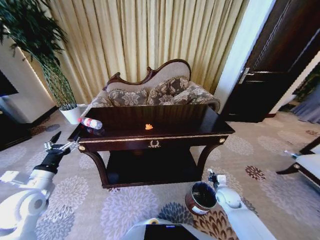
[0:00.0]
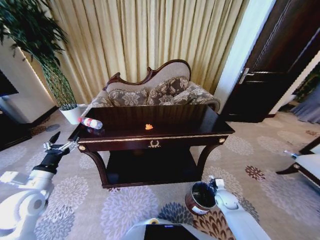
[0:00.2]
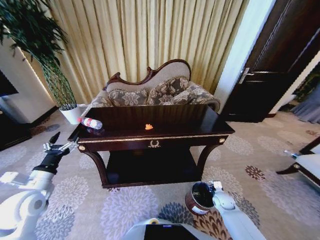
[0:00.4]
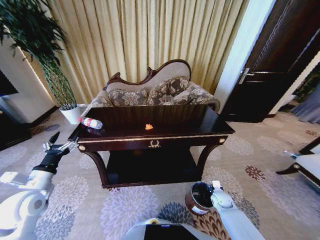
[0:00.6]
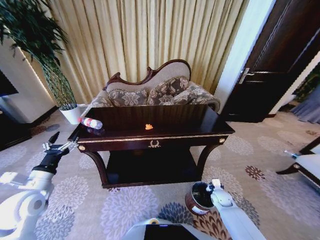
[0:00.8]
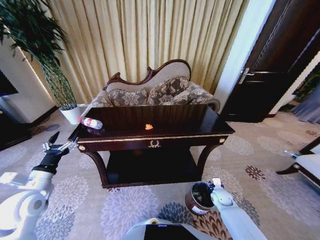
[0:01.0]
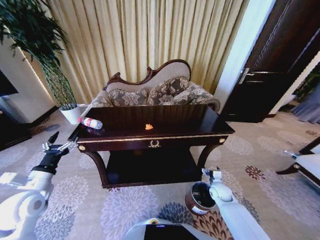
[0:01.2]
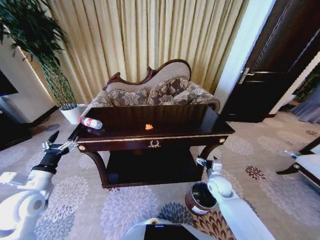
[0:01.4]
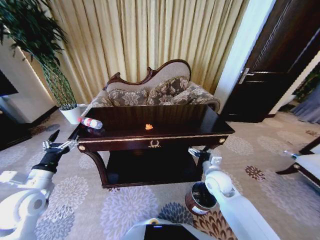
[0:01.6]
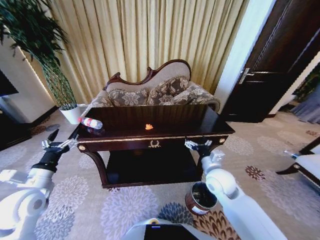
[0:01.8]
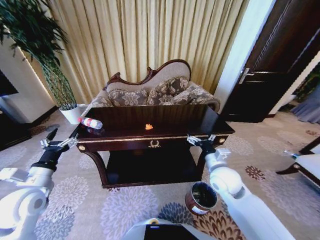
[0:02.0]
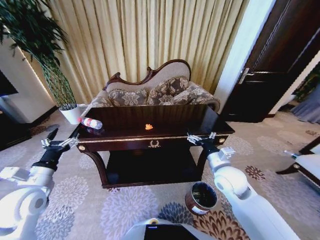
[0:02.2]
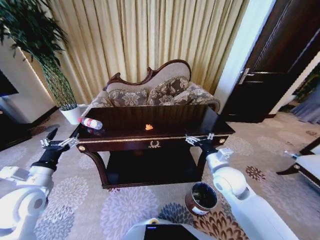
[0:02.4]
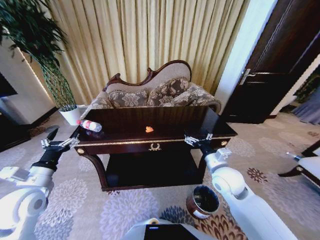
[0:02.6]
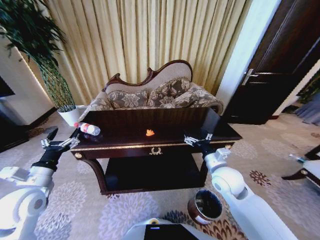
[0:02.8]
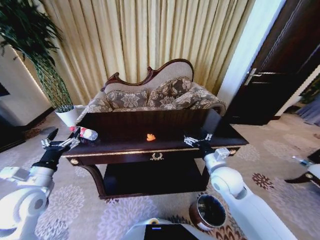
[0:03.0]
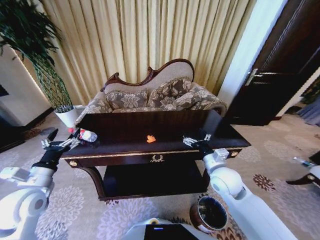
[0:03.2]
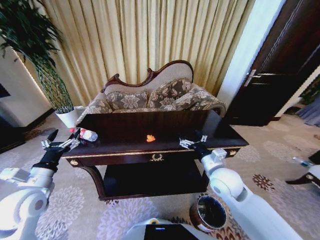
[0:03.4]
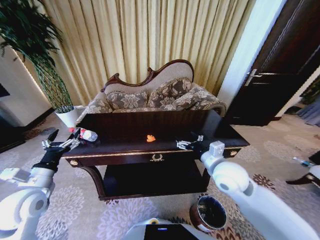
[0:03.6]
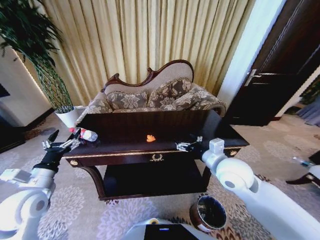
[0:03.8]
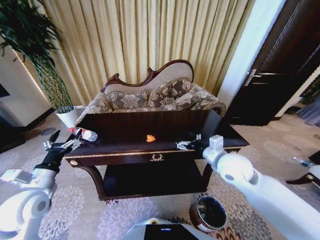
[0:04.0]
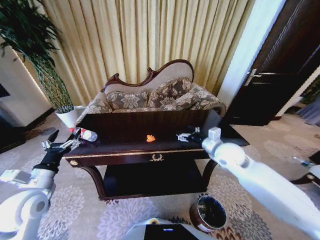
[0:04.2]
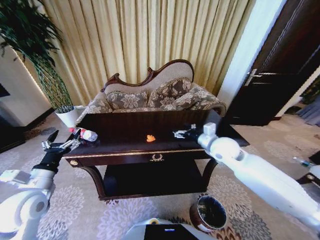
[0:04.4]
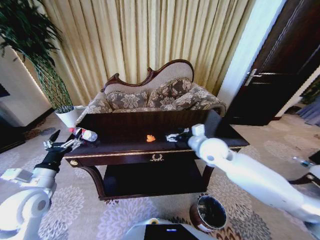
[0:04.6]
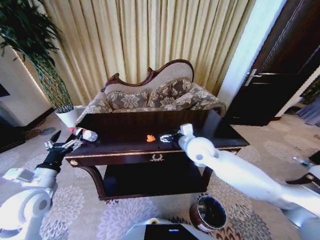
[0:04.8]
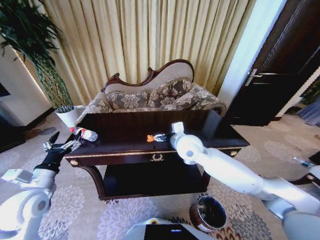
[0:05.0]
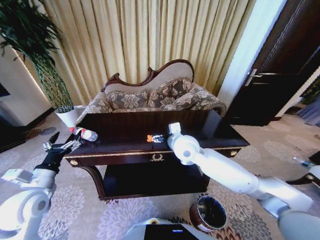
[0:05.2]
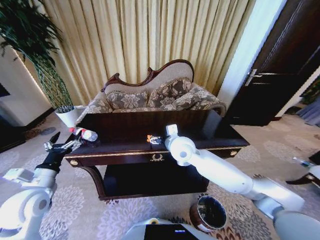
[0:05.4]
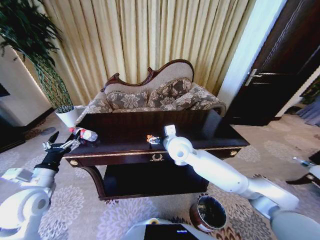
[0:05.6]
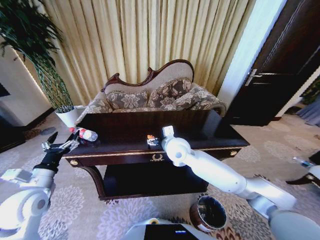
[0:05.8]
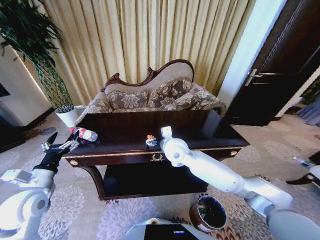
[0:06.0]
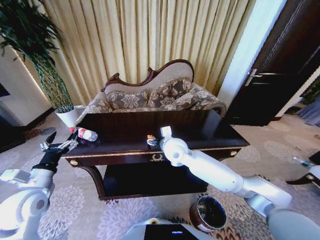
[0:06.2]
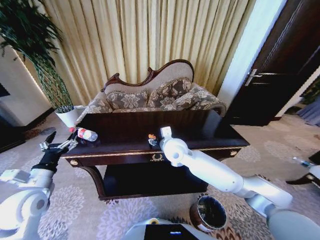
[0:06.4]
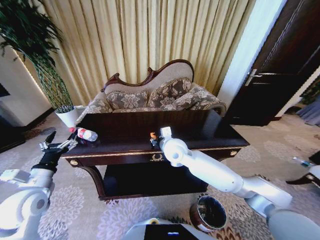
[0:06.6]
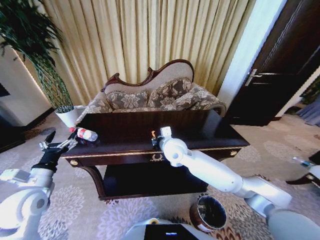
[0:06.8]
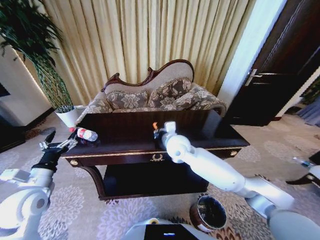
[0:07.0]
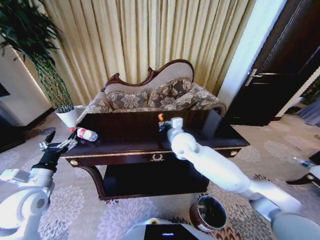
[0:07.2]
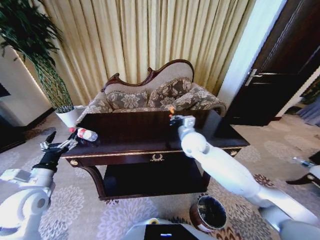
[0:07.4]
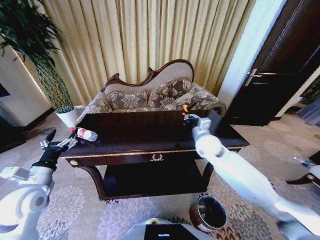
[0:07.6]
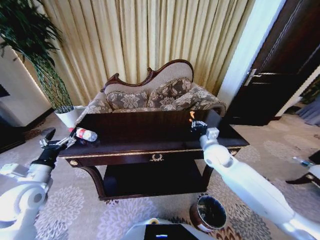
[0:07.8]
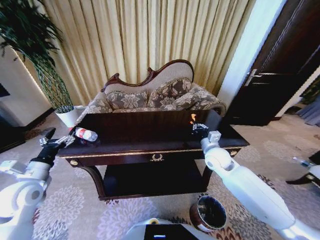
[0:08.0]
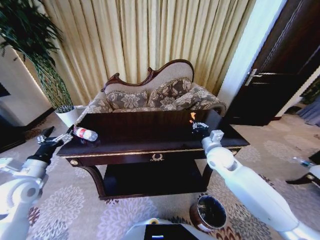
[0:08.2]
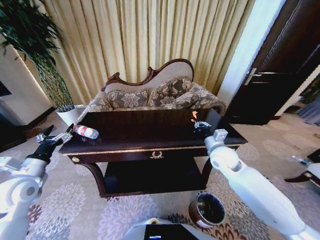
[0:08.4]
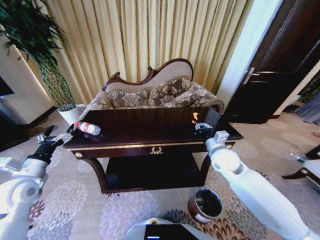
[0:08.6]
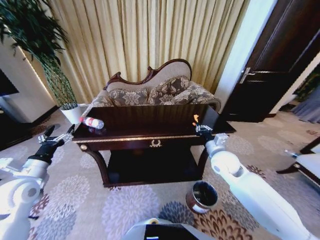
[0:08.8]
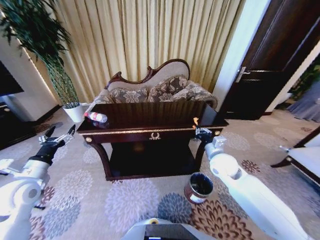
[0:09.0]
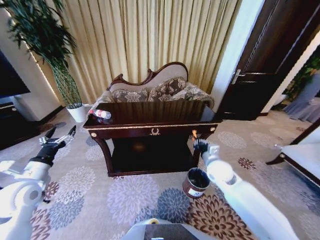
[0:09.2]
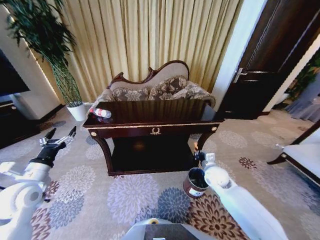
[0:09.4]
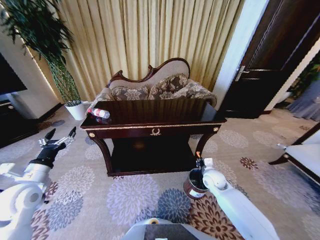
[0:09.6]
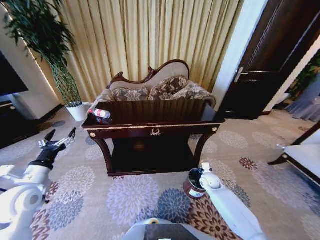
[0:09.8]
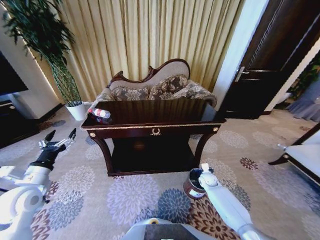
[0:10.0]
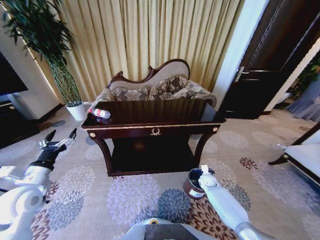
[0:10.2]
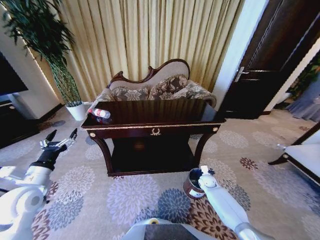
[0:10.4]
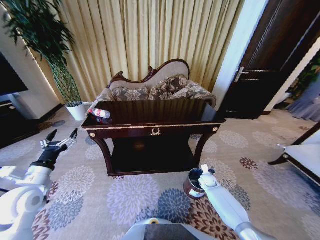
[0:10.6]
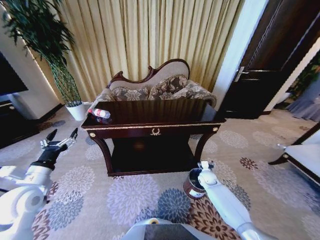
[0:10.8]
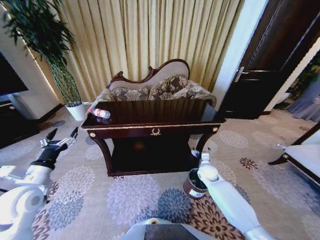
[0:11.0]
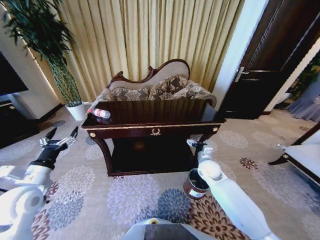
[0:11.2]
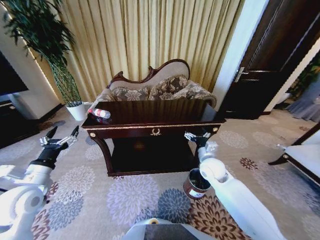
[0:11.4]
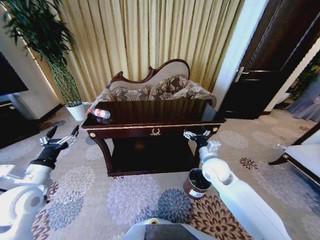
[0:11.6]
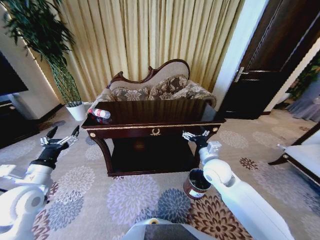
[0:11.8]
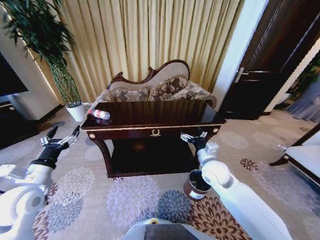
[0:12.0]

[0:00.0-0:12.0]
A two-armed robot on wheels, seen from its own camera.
Task of the whole recording: Move to the front of the table and place the trash on the table into the trash bin.
0:00.0 to 0:01.6: The right gripper is displaced upward and to the left by about 15 cm, and opens.
0:01.6 to 0:03.0: The right gripper is displaced upward by roughly 5 cm.
0:03.0 to 0:04.4: The right gripper travels forward and upward by roughly 10 cm.
0:04.4 to 0:06.0: The right gripper is displaced to the left by approximately 20 cm.
0:06.0 to 0:07.6: The right gripper moves to the right, roughly 15 cm, and closes.
0:07.6 to 0:09.0: The right gripper moves backward, about 5 cm.
0:09.0 to 0:10.4: The right gripper is displaced downward by roughly 30 cm.
0:10.4 to 0:12.0: The right gripper travels upward by roughly 25 cm, and opens its fingers.

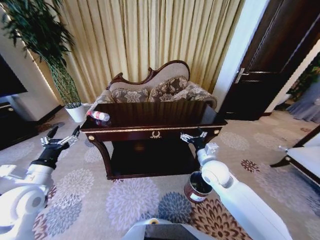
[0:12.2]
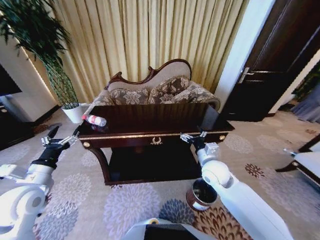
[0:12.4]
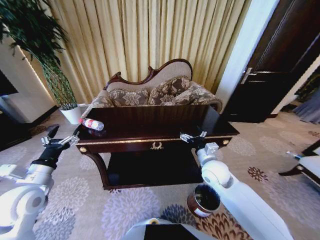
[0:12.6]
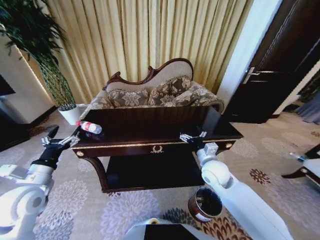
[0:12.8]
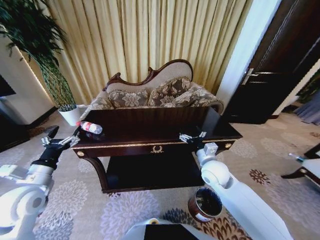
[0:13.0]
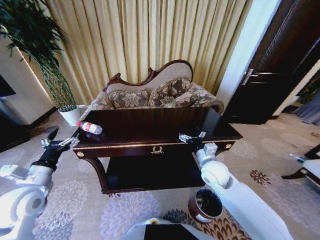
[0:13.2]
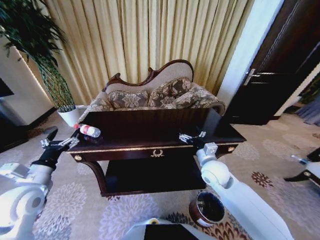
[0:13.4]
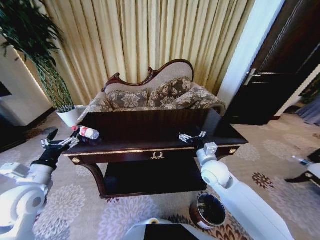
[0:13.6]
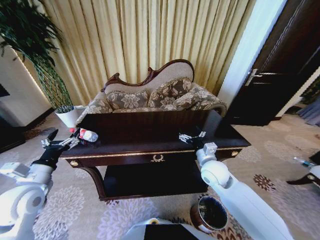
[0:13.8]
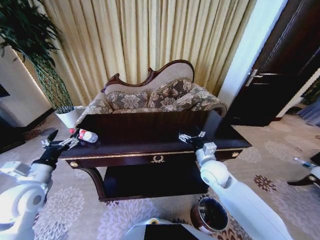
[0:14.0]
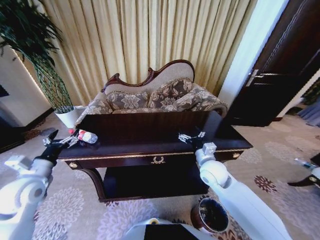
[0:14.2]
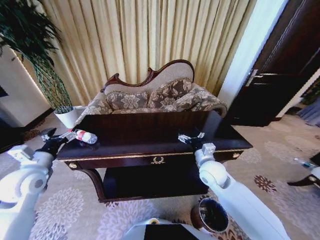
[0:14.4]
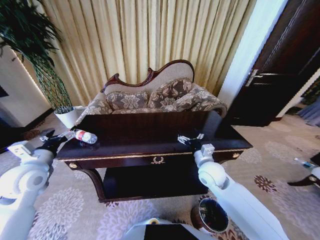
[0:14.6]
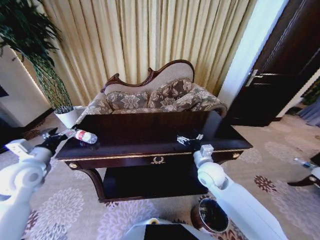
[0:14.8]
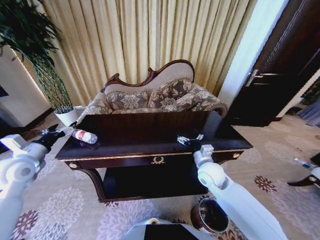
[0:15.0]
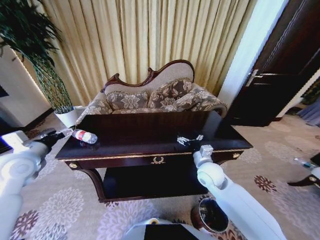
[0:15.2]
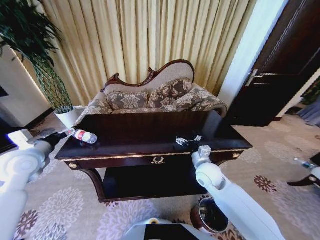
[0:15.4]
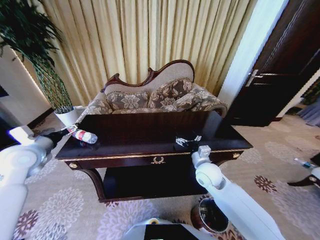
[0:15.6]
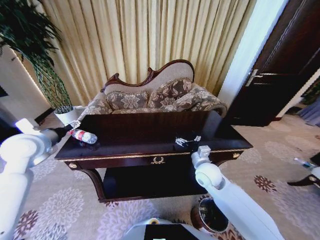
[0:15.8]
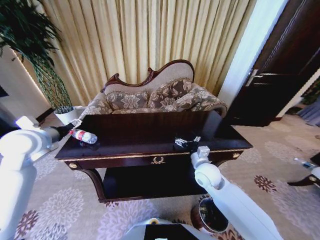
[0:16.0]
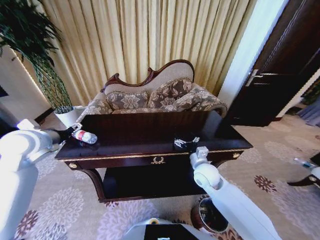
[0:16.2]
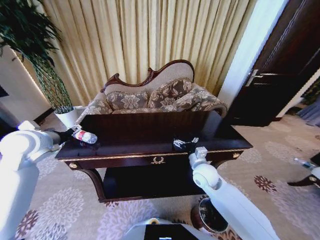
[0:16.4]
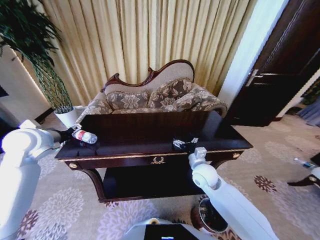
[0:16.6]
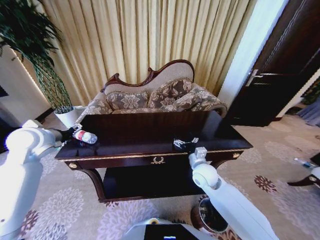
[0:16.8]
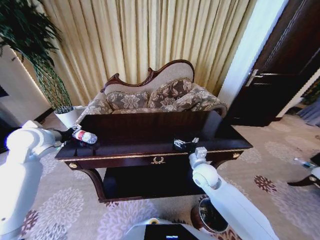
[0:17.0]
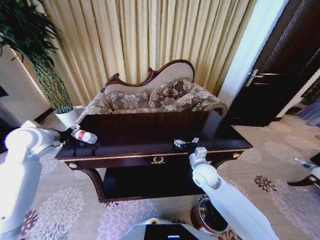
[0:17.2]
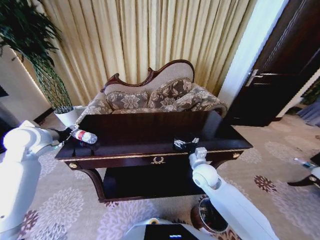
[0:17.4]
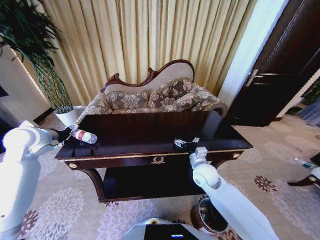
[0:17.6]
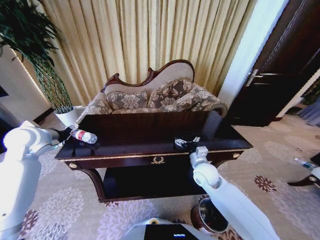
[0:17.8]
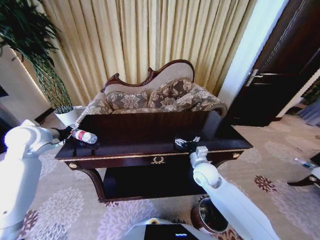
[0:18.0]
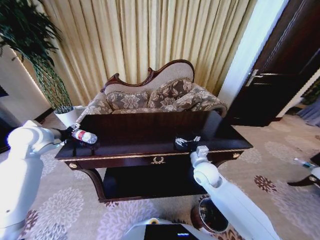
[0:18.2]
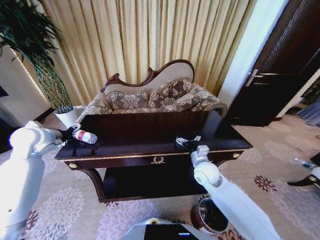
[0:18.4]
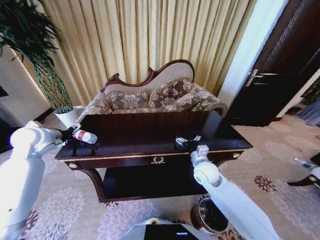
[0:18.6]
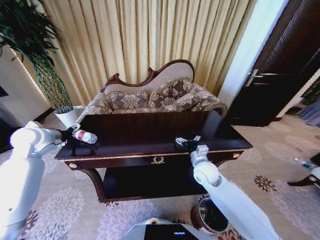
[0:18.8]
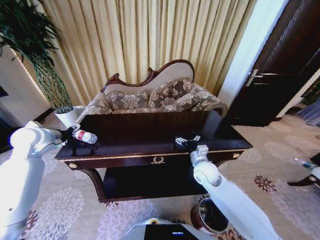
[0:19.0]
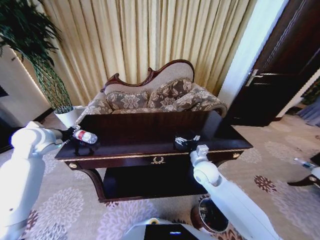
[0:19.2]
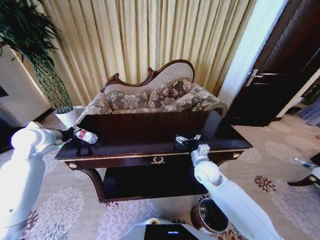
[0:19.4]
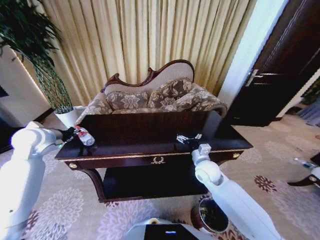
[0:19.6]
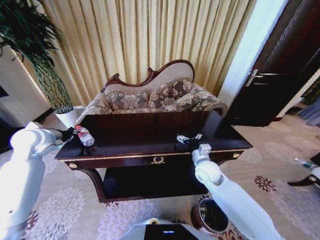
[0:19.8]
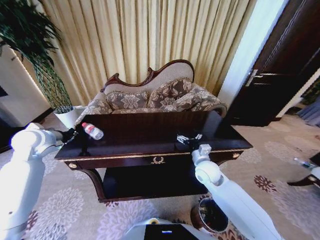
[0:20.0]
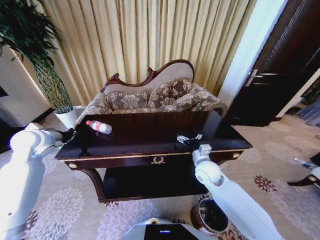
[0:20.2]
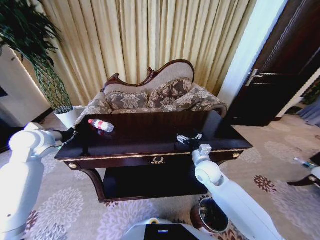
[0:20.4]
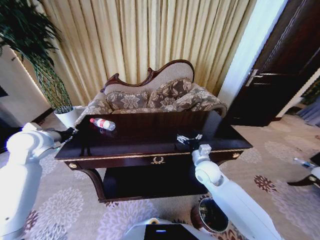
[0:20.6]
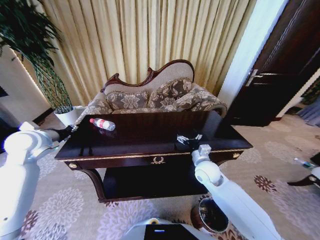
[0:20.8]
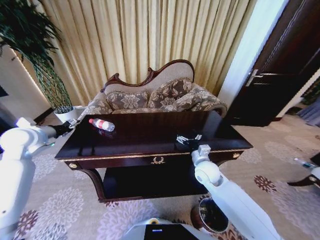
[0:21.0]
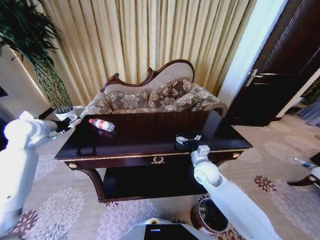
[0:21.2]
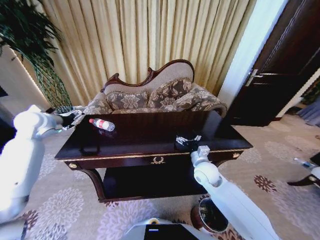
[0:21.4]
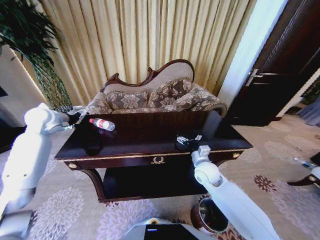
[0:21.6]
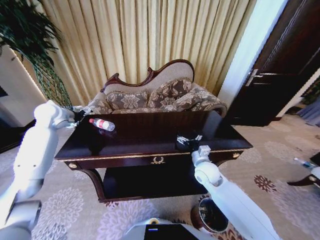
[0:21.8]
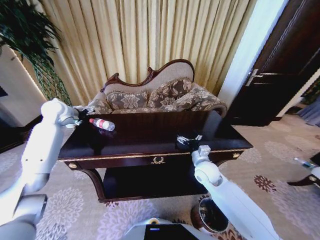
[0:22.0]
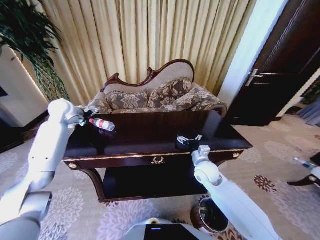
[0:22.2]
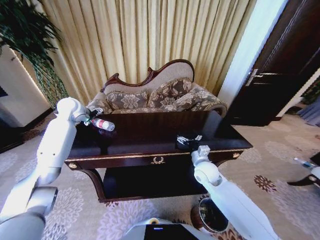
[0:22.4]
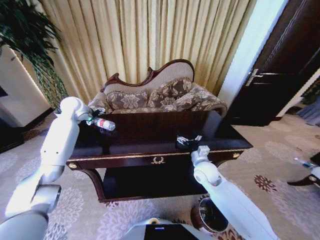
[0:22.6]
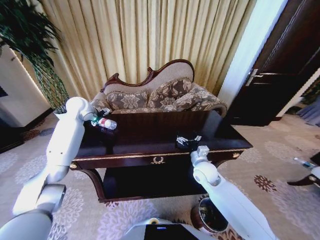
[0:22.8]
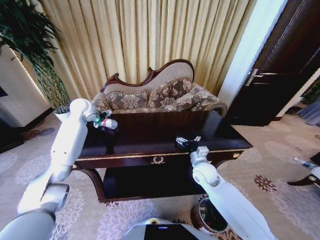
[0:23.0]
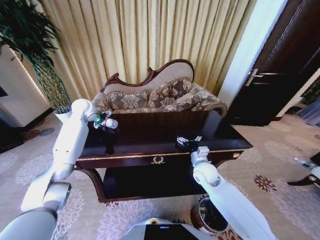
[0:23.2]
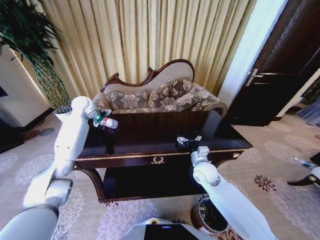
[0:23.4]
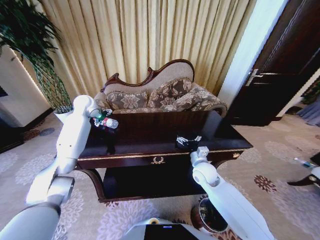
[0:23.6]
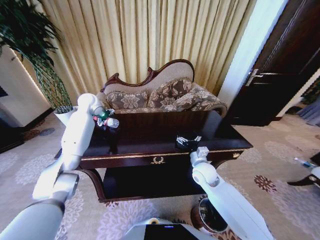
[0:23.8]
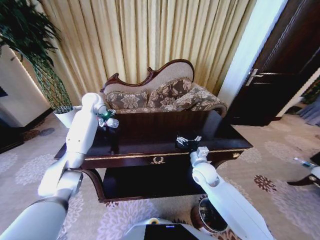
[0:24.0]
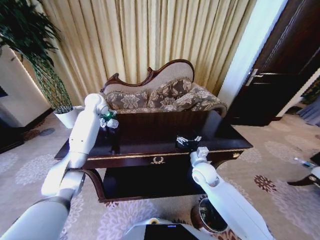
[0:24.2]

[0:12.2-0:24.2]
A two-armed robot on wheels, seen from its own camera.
Task of the whole recording: Move to the front of the table and place the trash on the table into the trash bin.
0:13.8 to 0:15.2: The left gripper is displaced forward and upward by roughly 10 cm.
0:15.2 to 0:16.6: The left gripper travels forward by roughly 5 cm.
0:16.6 to 0:18.2: There are only small adjustments of the grippers.
0:18.2 to 0:19.8: The left gripper closes up.
0:19.8 to 0:21.2: The left gripper opens its fingers.
0:21.2 to 0:22.6: The left gripper moves forward and to the right, about 20 cm.
0:22.6 to 0:24.2: The left gripper heads to the right and forward, covering some 10 cm.
